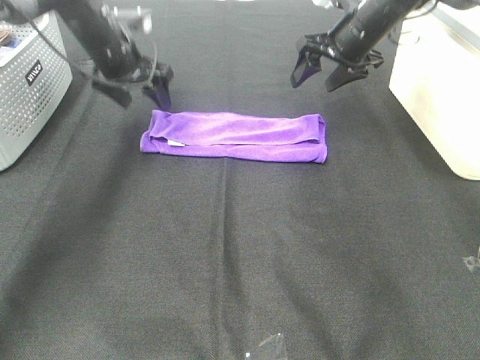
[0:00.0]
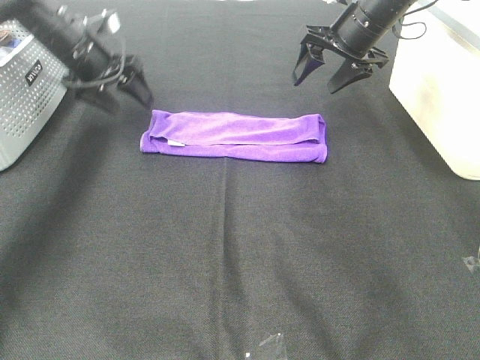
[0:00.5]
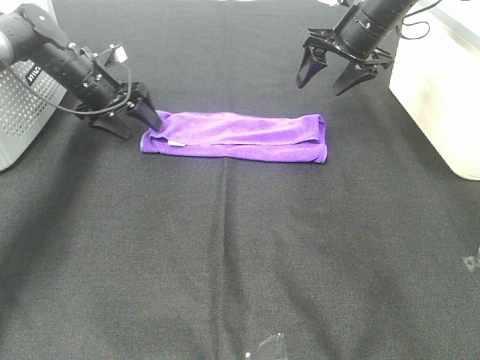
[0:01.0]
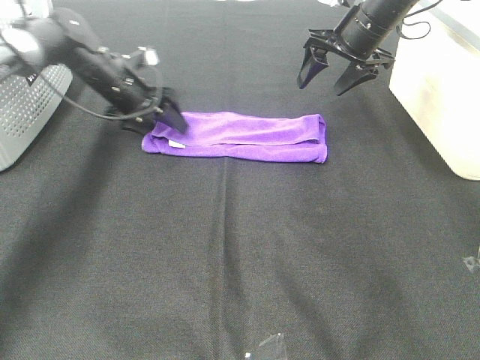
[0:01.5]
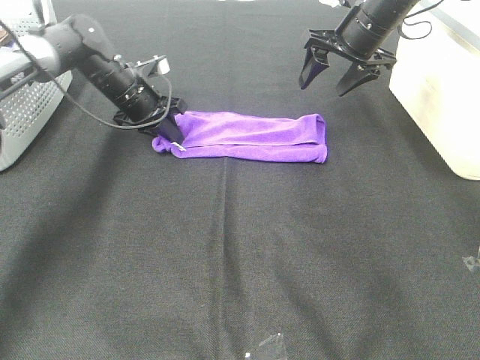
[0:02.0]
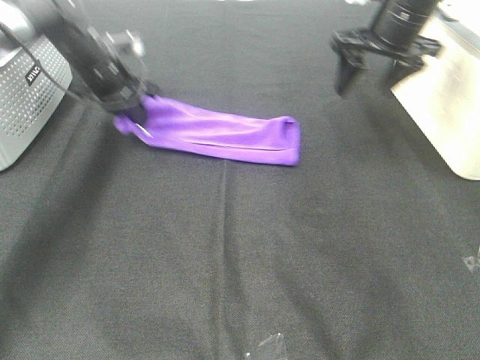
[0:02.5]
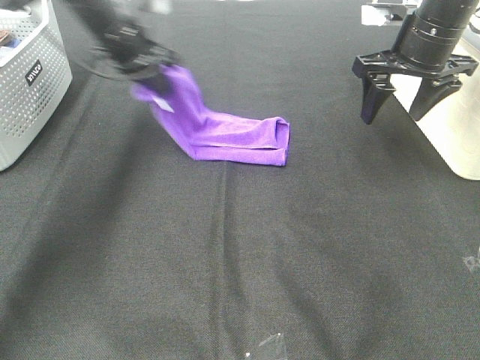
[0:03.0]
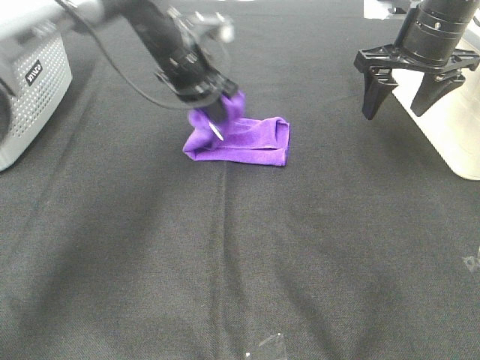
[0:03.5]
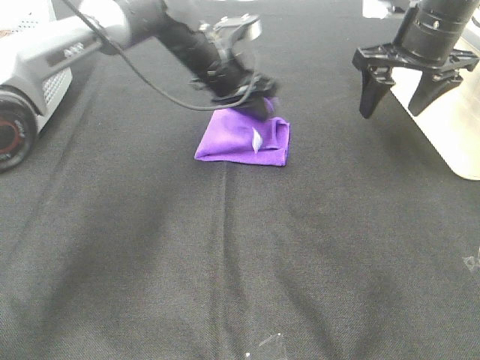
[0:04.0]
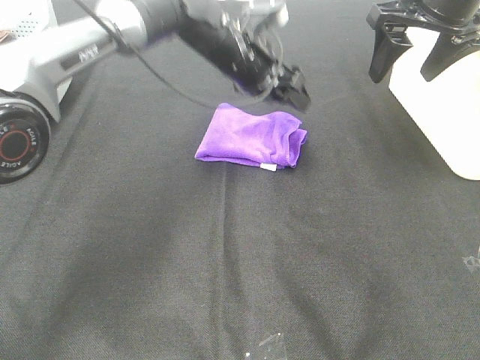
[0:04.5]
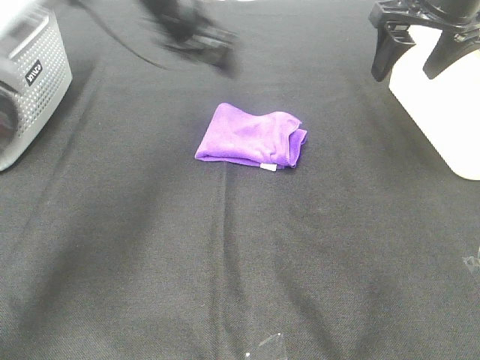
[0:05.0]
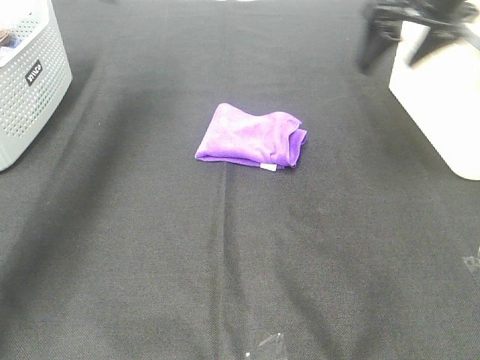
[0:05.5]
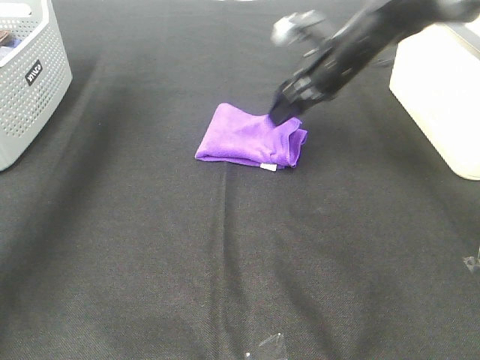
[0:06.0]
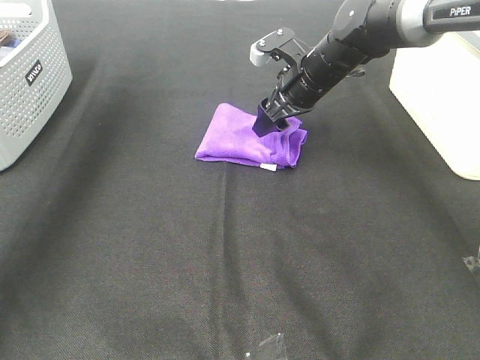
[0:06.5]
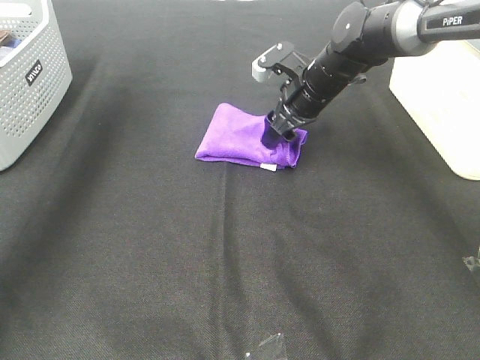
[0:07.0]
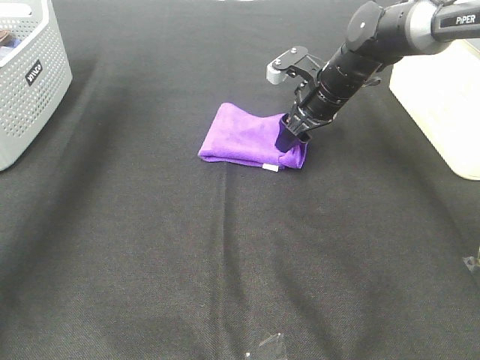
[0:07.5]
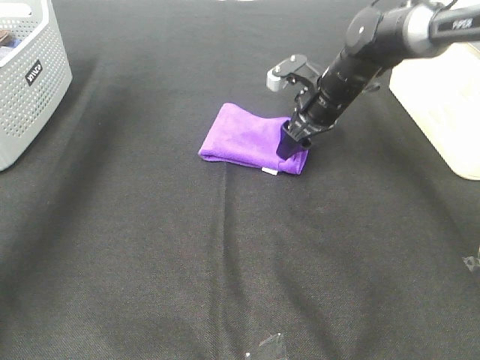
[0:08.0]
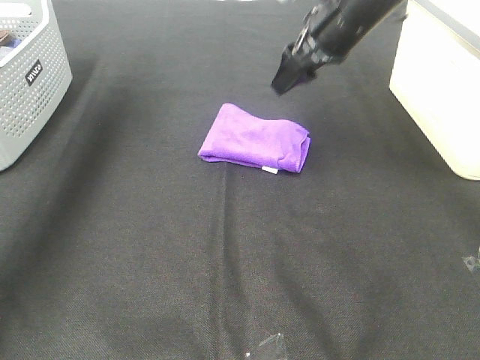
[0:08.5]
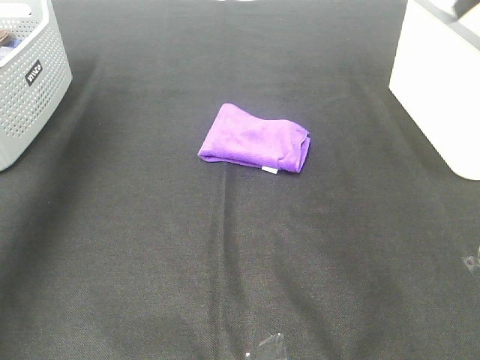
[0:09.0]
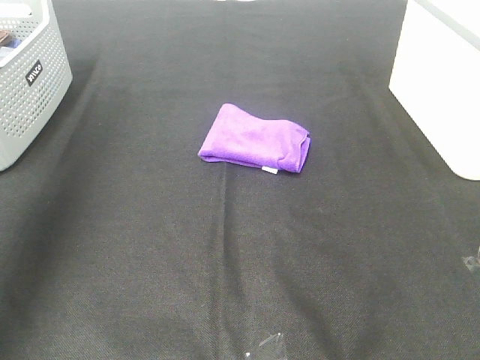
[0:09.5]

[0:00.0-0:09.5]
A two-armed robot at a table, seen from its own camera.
Task of the whole recording: Fold towels.
Step, 0:00.0 to 0:03.5: Left hand: fold the purple towel from left to right.
Step, 0:04.0 to 0:06.5: Right hand: adjust the purple towel.
0:00.0 to 0:02.0: The left gripper heads downward, covering some 10 cm, and closes.
0:02.0 to 0:04.0: The right gripper moves backward, approximately 10 cm, while the left gripper travels to the right and upward by about 15 cm, and opens its fingers.
0:04.0 to 0:05.5: The left gripper goes some 30 cm to the left and upward.
0:05.5 to 0:07.5: The right gripper travels downward by roughly 15 cm.
0:07.5 to 0:09.5: The right gripper travels backward, upward and to the right by roughly 40 cm; the left gripper is displaced backward by some 25 cm.

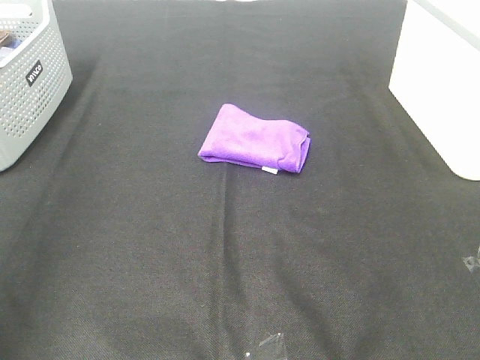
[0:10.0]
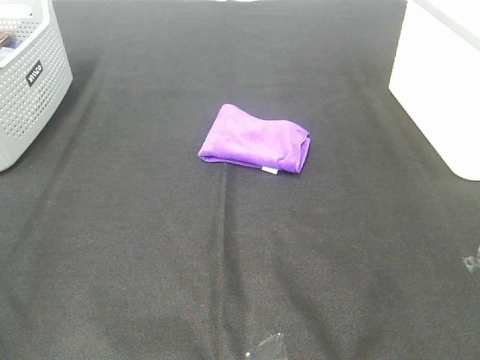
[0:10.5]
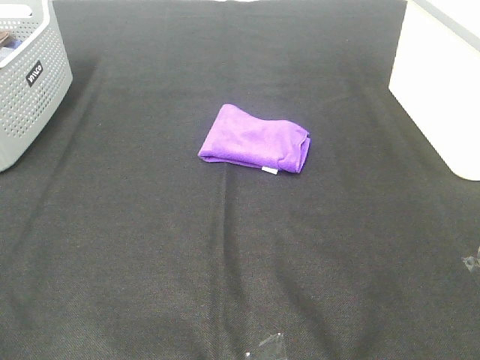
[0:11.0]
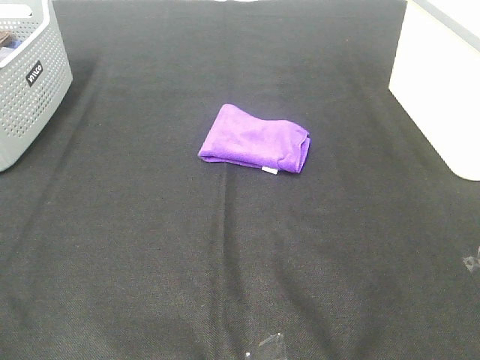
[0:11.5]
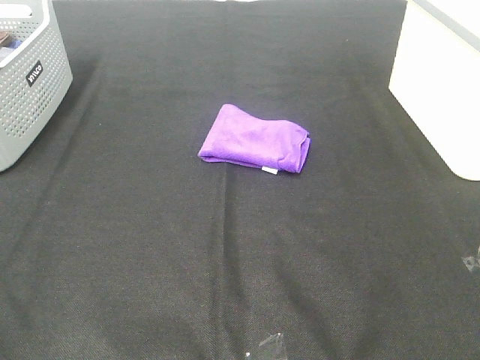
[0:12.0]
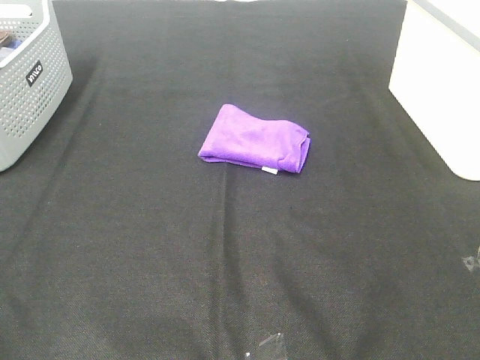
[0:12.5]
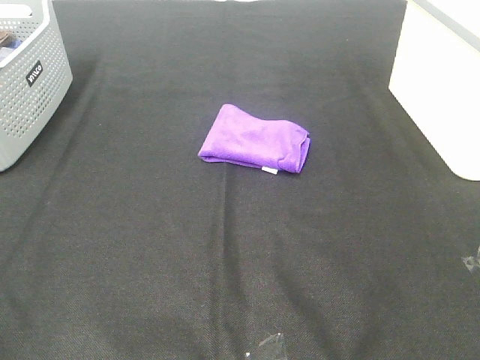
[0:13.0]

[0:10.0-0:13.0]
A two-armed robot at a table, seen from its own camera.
Task of the whole recording: Fold towels.
0:11.5 to 0:13.0: Both grippers stay put.
